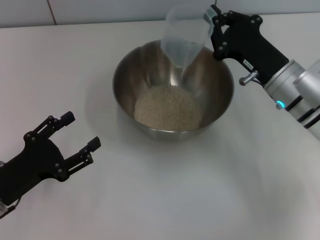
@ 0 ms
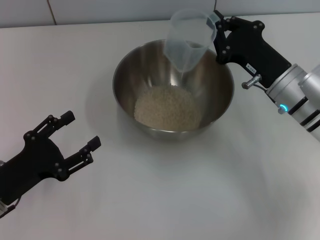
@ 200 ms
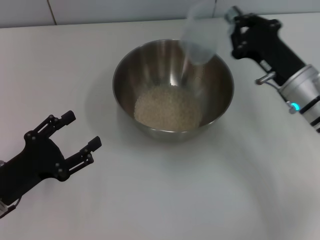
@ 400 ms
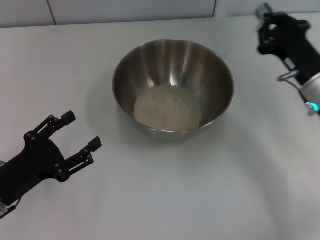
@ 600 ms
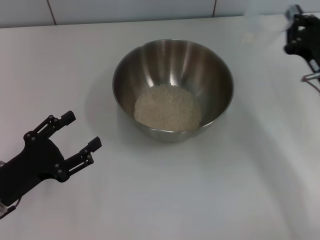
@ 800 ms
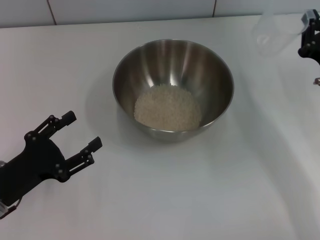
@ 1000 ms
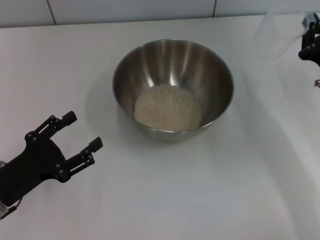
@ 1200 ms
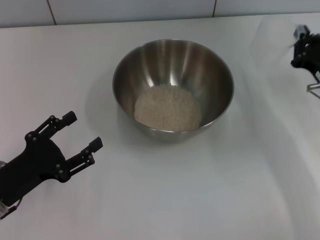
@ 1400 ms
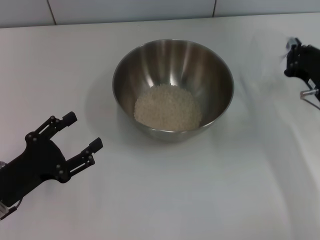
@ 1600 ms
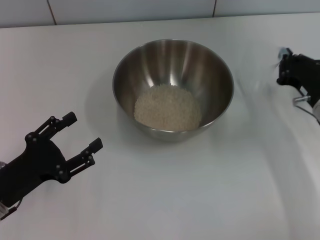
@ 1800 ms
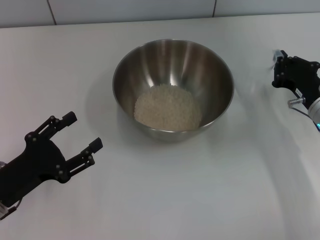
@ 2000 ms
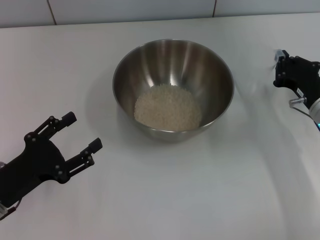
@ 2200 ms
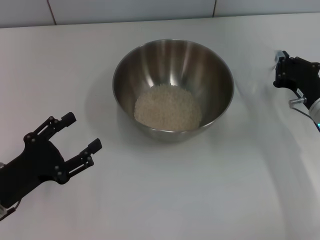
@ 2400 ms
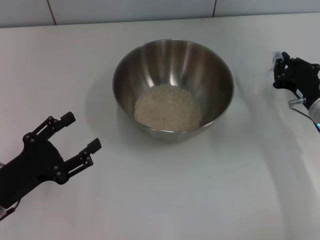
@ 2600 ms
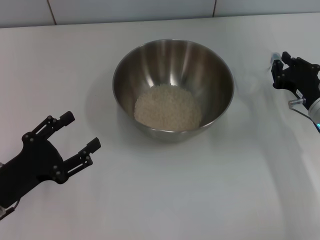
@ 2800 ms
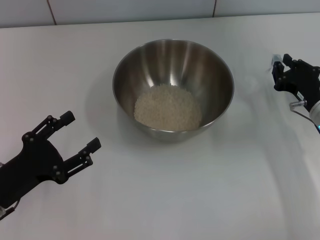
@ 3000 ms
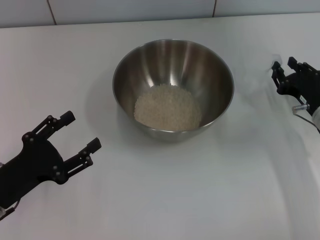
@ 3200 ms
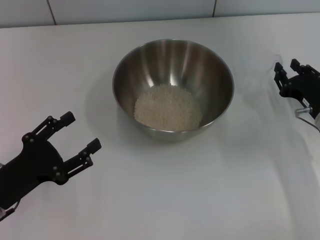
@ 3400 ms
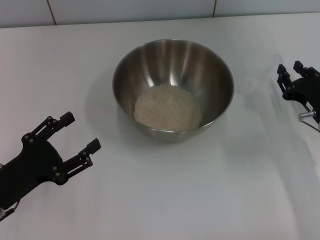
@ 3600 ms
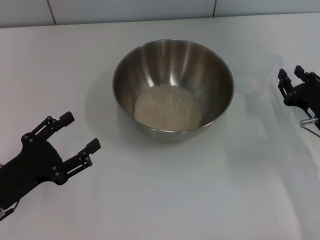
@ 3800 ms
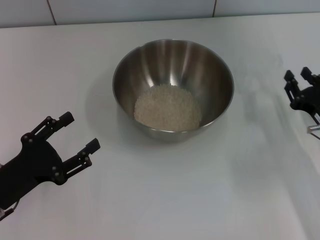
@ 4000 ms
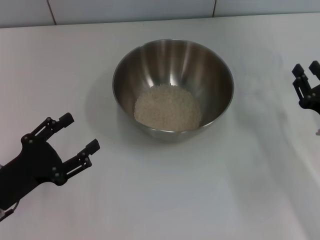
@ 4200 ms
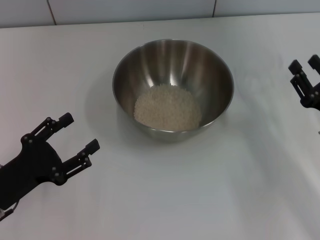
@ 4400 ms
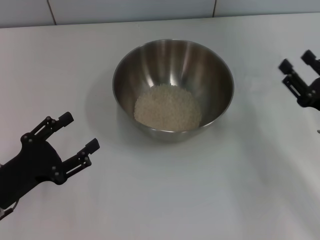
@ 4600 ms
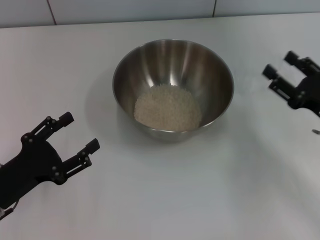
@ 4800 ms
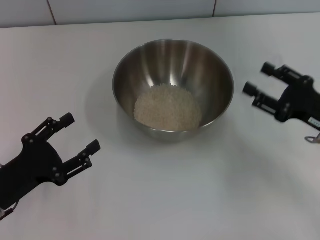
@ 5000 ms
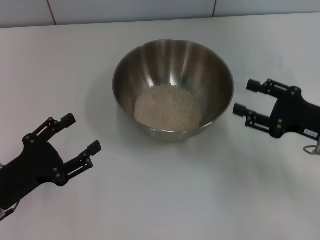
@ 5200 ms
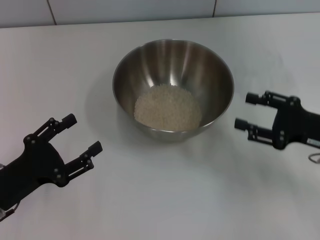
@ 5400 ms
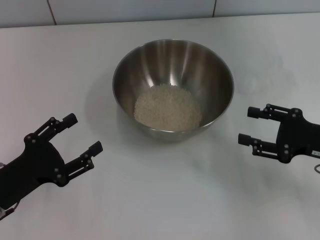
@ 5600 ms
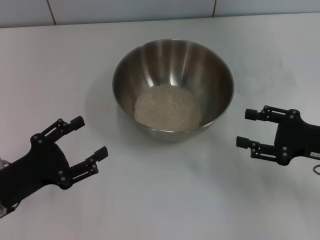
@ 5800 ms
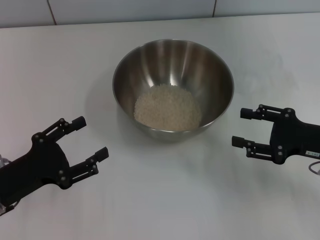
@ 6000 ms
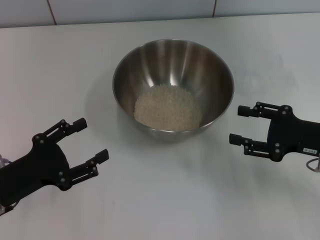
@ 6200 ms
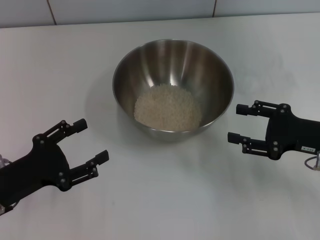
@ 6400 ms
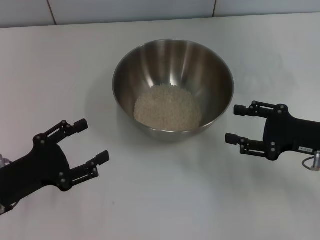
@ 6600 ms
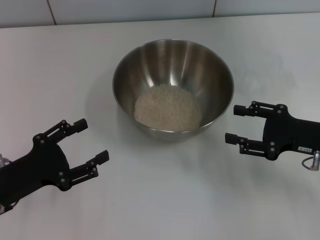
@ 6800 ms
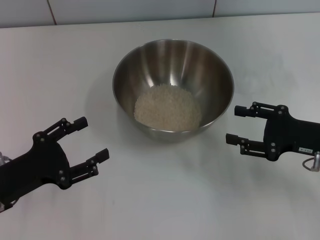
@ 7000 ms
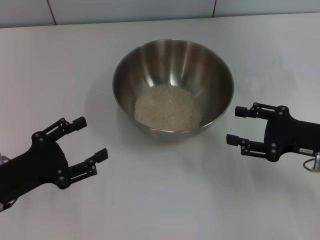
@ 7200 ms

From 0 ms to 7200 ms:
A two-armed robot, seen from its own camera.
Task of the whole recording: Place the bowl in the middle of the table with one hand and pour the rice from the grain cup into it with the other hand.
Step, from 600 ms to 4200 ms: Place the cup on the table with the right gripper.
From 0 ms to 1400 ms: The right gripper goes about 10 cm to the right.
From 1400 ms to 2800 ms: There are only small adjustments of the grippers.
From 2800 ms to 4400 ms: The right gripper shifts roughly 10 cm backward, and opens its fingers.
From 4400 ms to 5800 ms: The right gripper opens.
From 5800 ms to 7200 ms: There are only small adjustments of the grippers.
